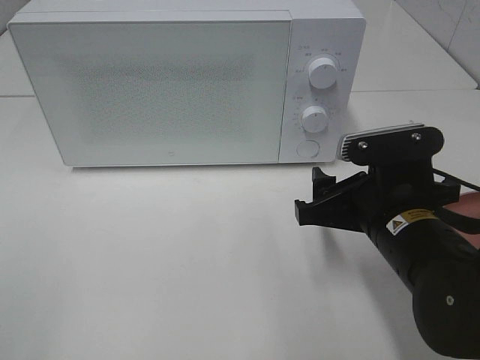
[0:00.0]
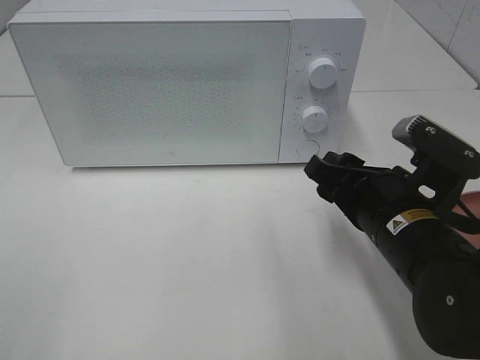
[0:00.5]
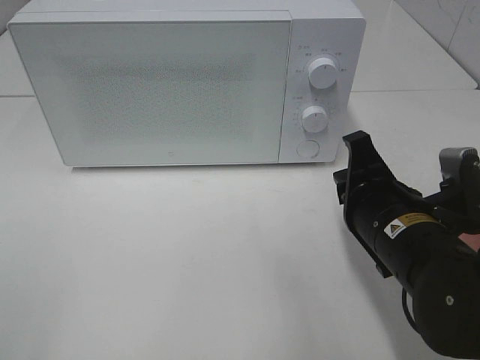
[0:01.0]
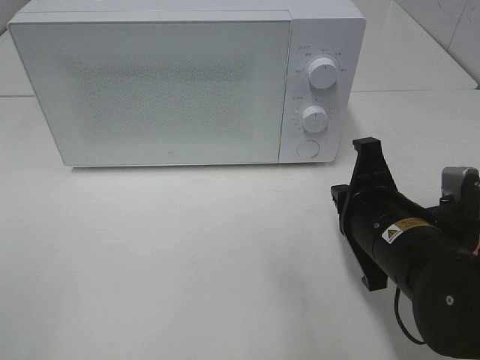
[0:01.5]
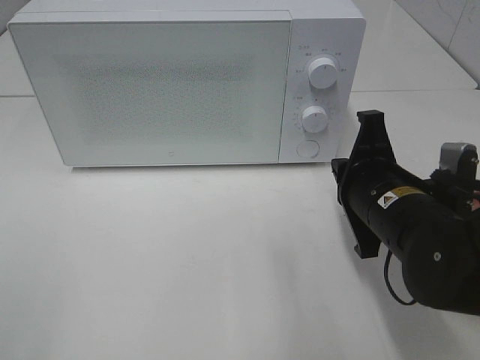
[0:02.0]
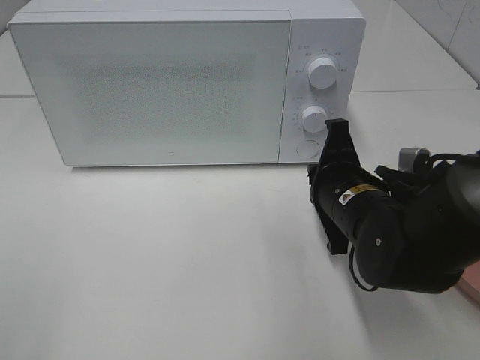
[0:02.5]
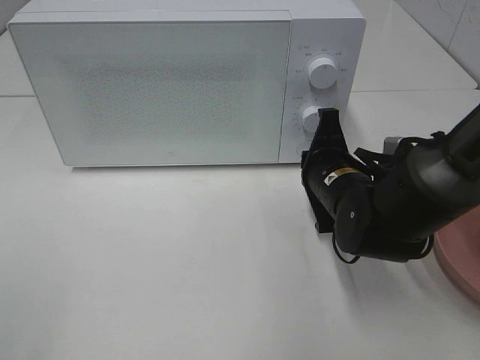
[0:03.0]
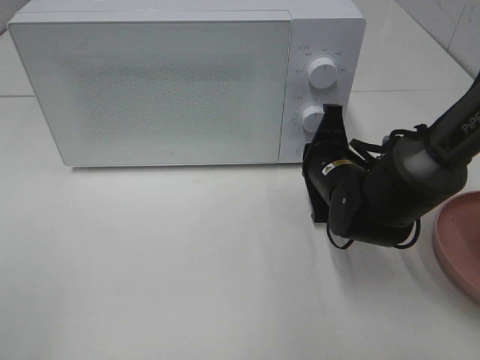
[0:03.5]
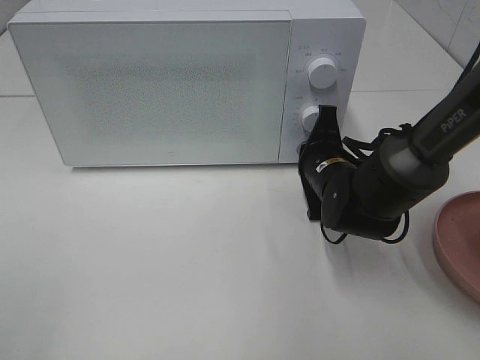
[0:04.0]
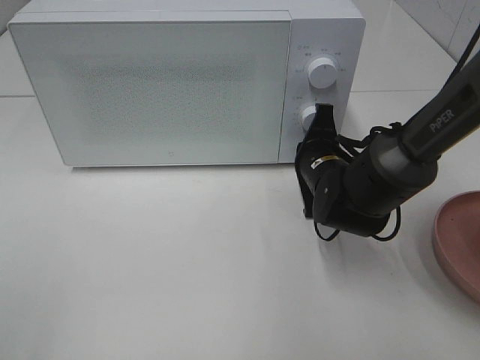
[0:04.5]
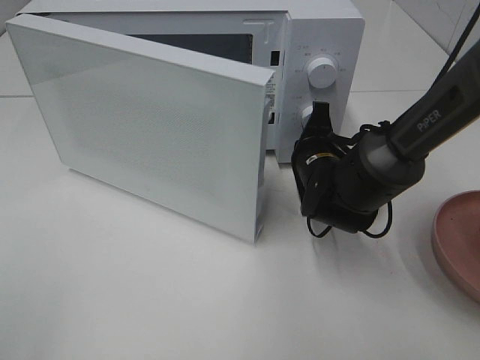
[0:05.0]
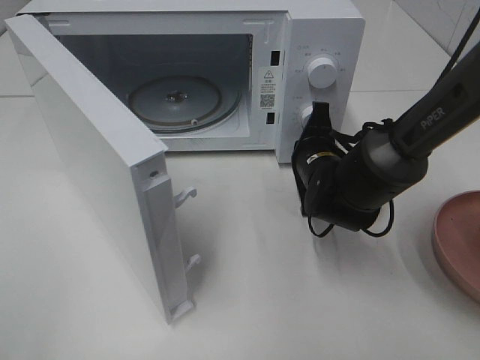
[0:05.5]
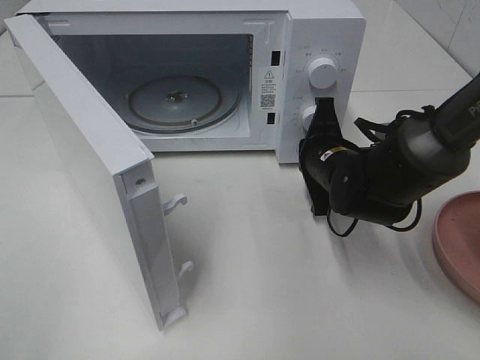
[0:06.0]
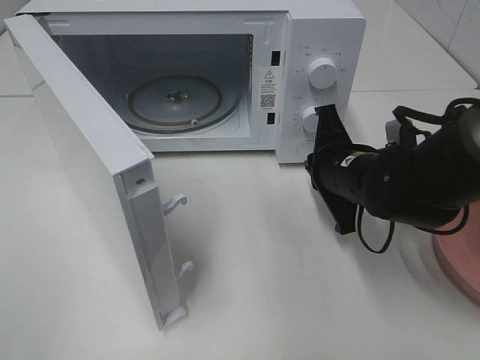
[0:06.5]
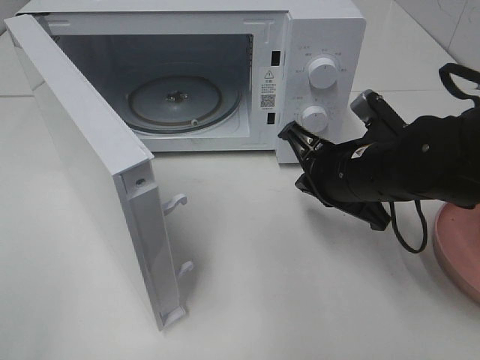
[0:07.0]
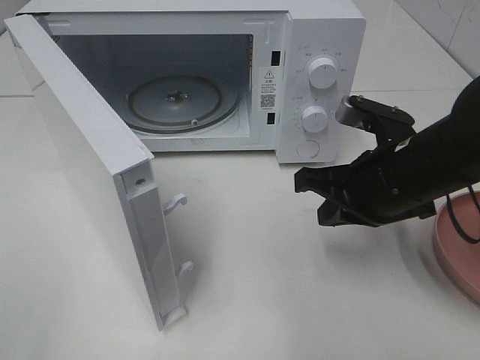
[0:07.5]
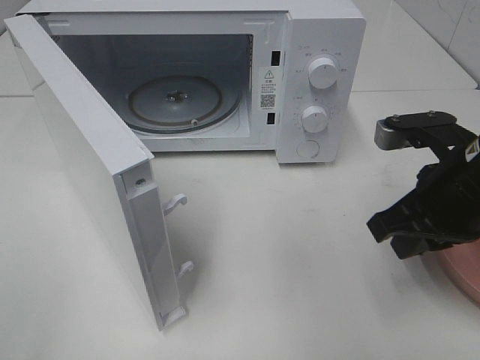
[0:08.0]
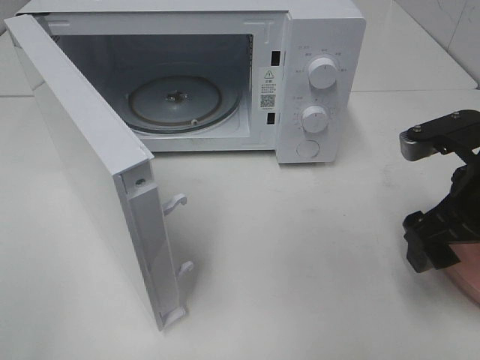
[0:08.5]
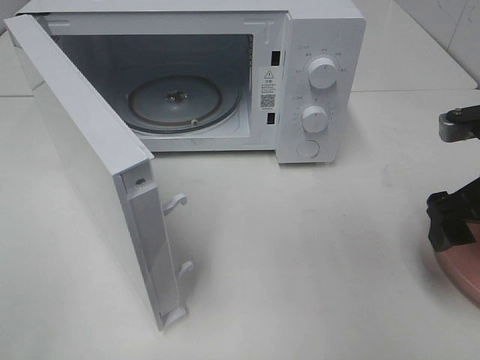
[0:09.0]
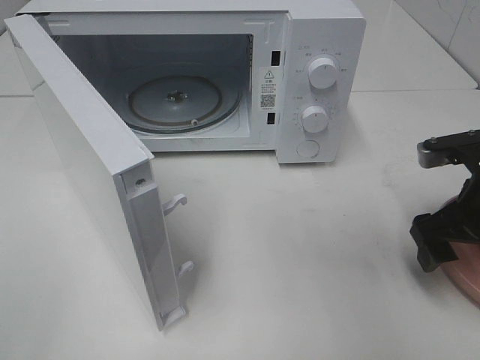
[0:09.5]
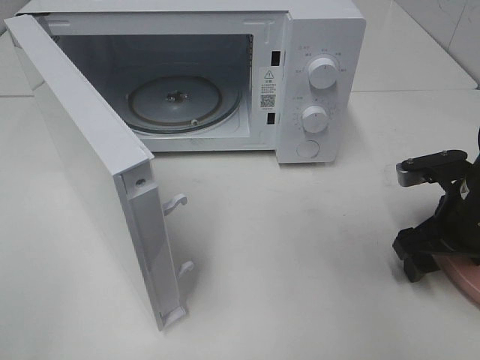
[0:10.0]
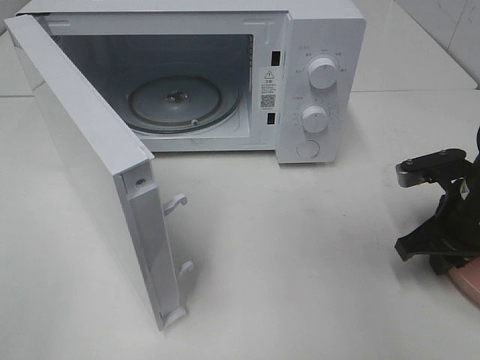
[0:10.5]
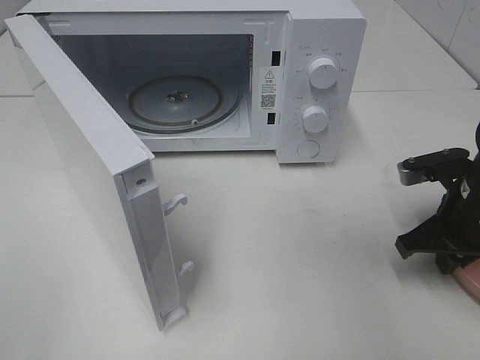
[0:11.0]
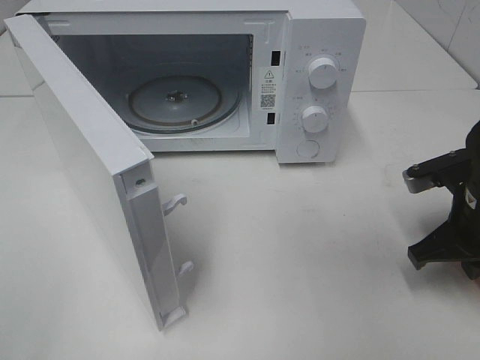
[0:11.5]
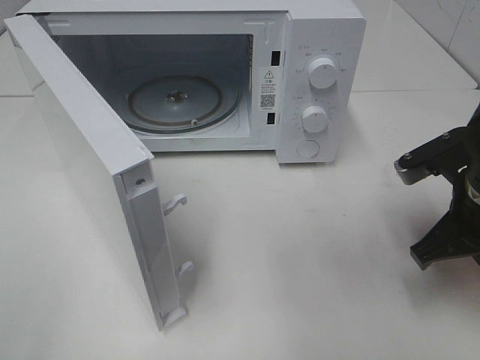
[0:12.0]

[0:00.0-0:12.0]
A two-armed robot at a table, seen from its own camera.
Task of the whole recording: Heat the burger.
Step, 0:00.0 to 0:06.0: Right hand: press the switch.
Step, 0:06.5 to 0:11.5: Right hand: grab the plate with the hamburger.
0:00.0 to 0:02.0: The right gripper closes its fingers.
0:02.0 to 0:04.0: The right gripper travels forward and downward by roughly 15 cm.
0:06.0 to 0:08.0: The right gripper moves backward, upward and to the right, about 15 cm.
0:08.0 to 0:10.0: The right gripper travels downward by approximately 10 cm, and opens.
0:10.0 to 0:12.0: The right gripper ends up some 5 cm from where it was, and closes up.

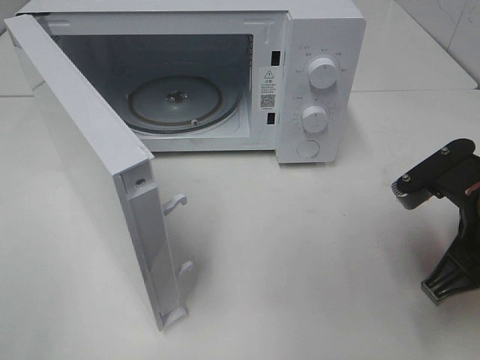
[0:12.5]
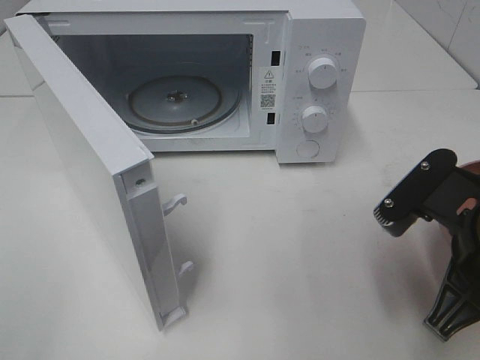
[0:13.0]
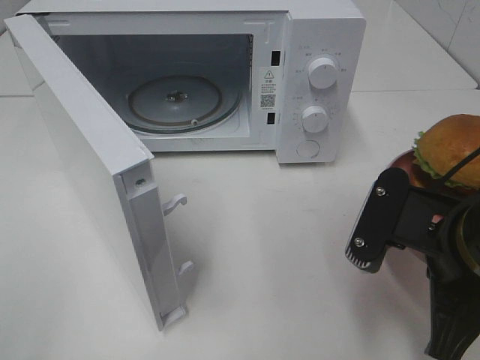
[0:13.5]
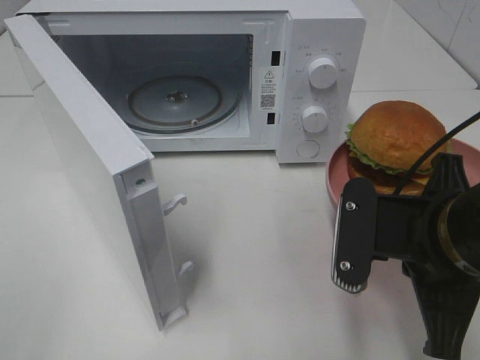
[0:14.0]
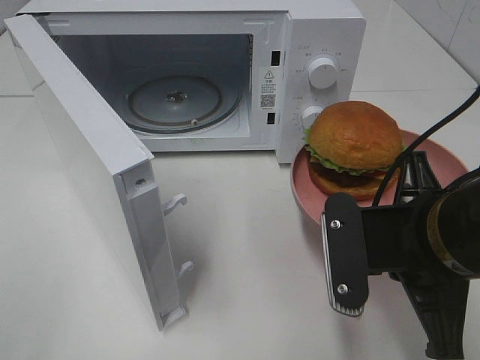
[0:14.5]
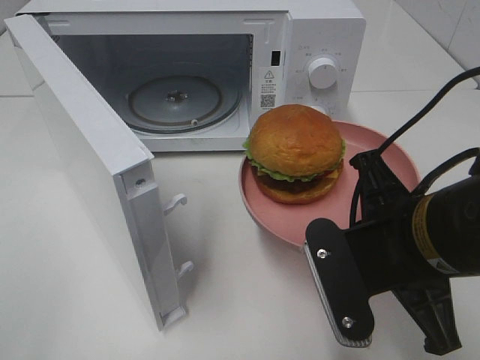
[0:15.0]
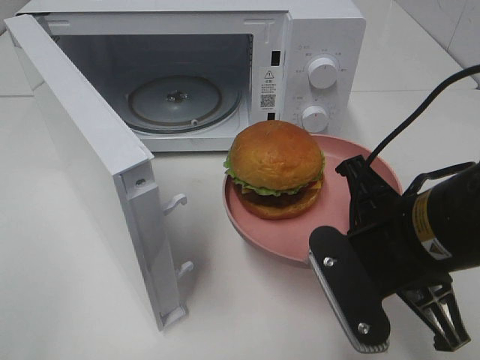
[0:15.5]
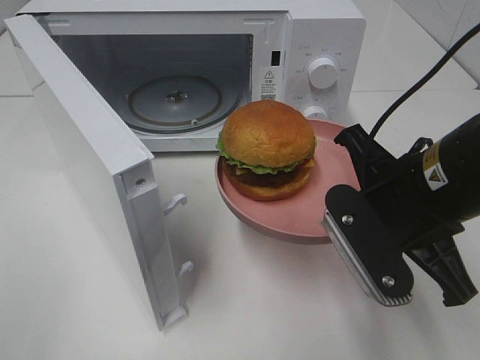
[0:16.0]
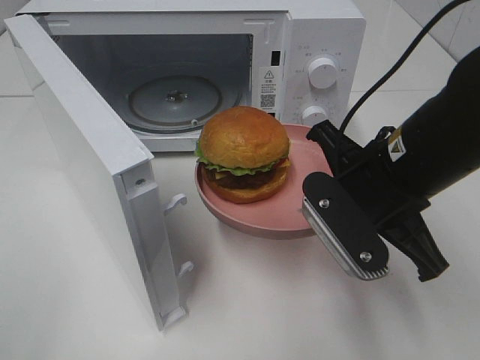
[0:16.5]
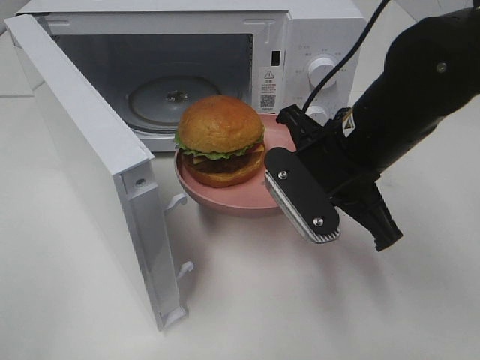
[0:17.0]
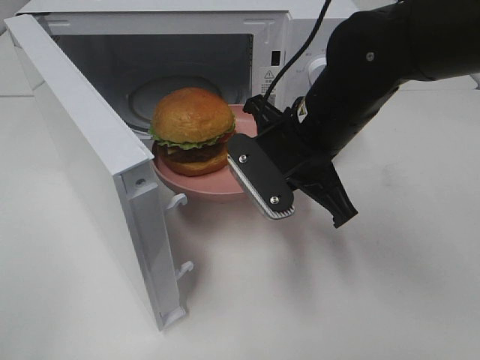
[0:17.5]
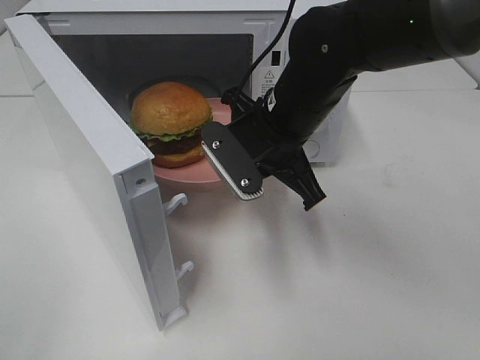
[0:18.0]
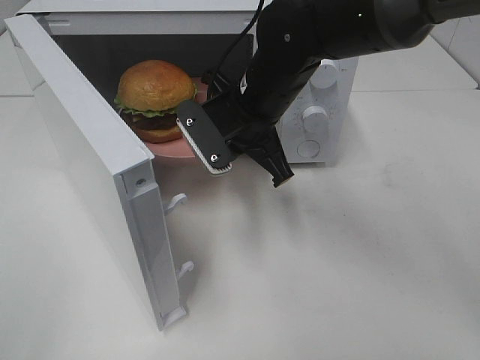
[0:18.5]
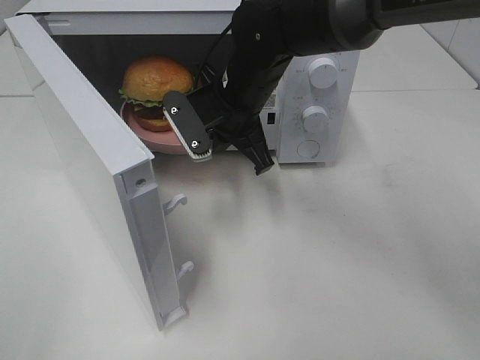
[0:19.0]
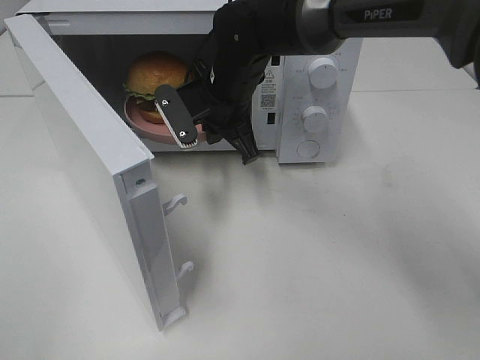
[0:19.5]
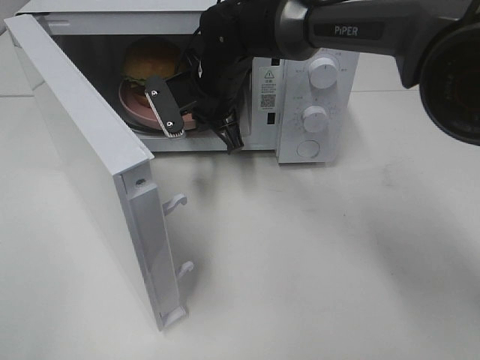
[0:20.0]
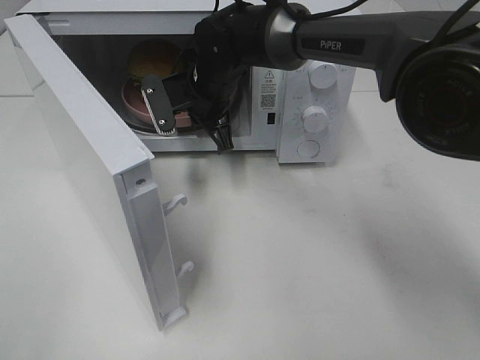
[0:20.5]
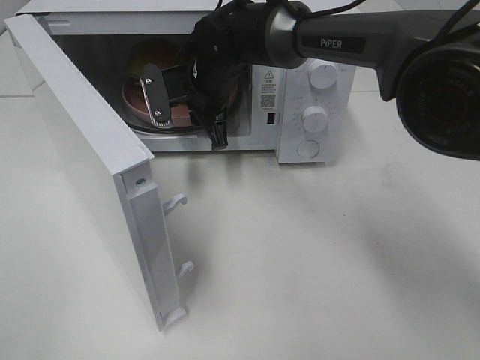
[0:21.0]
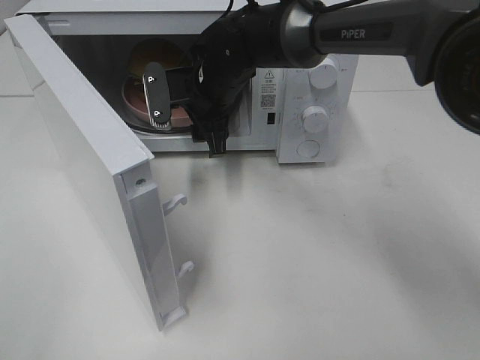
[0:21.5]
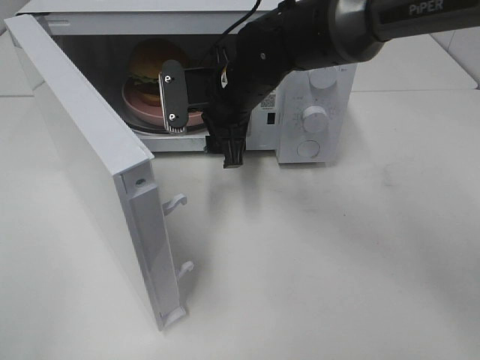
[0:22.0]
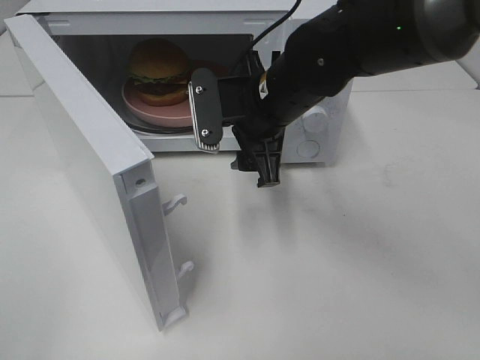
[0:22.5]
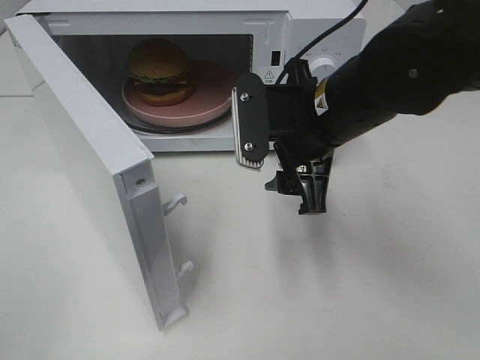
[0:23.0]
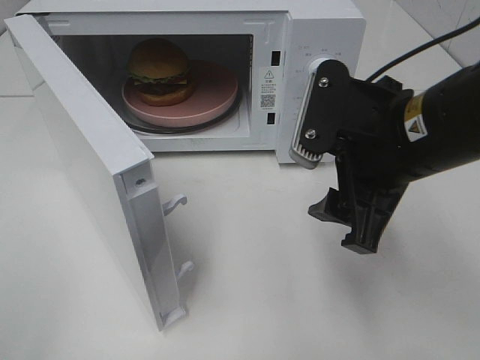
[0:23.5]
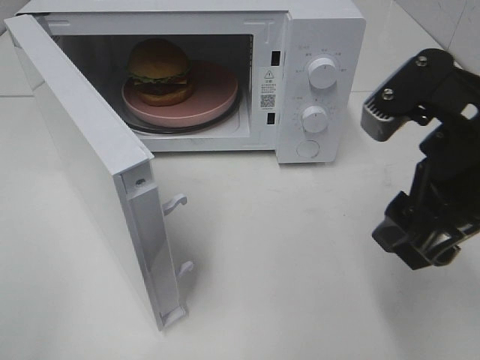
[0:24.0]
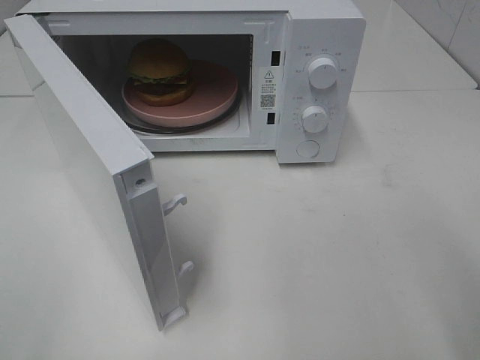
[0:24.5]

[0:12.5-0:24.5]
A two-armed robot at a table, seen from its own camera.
Task of the whole recording: Heat the burger.
Step, 0:12.5 to 0:21.0: Right hand: place the plate in the microwave.
0:12.5 to 0:14.5: The right gripper goes some 5 cm to the left.
0:14.5 to 0:16.5: The right gripper moves forward, roughly 5 cm.
0:16.5 to 0:18.5: The right gripper goes approximately 15 cm forward and to the left.
0:18.5 to 0:20.5: The right gripper heads forward and to the left, covering about 10 cm.
0:20.5 to 0:22.5: The right gripper shifts about 15 cm backward and to the right, and opens.
0:22.5 to 0:24.5: The right gripper is displaced backward, to the right and upward by approximately 30 cm.

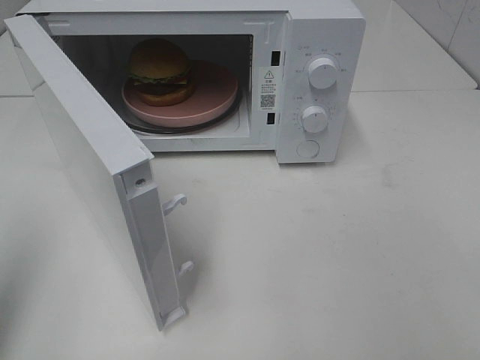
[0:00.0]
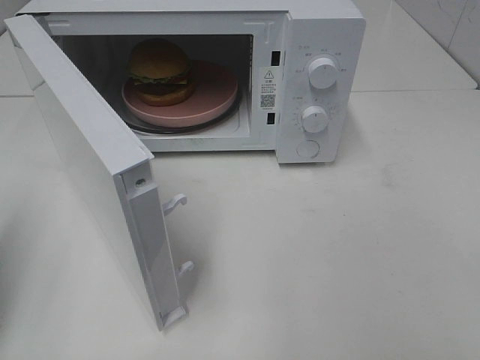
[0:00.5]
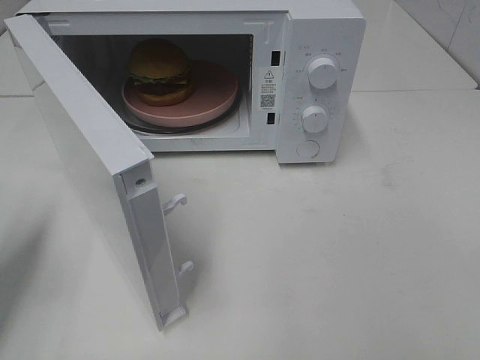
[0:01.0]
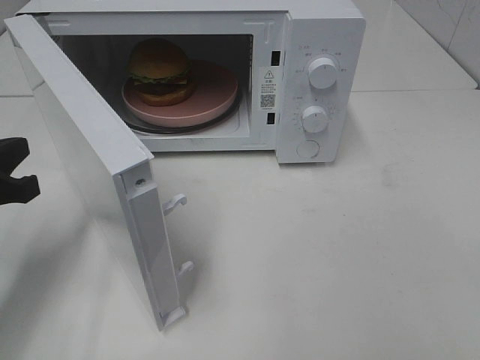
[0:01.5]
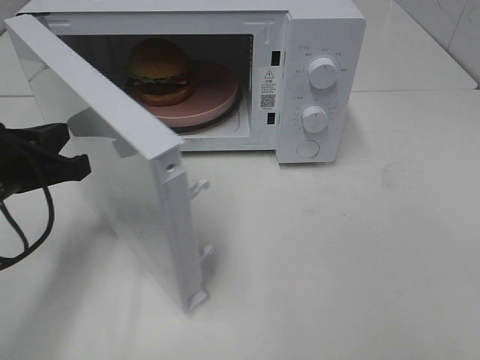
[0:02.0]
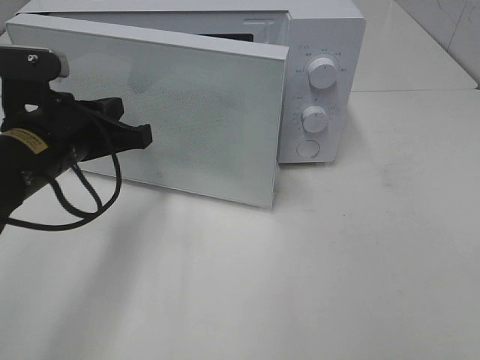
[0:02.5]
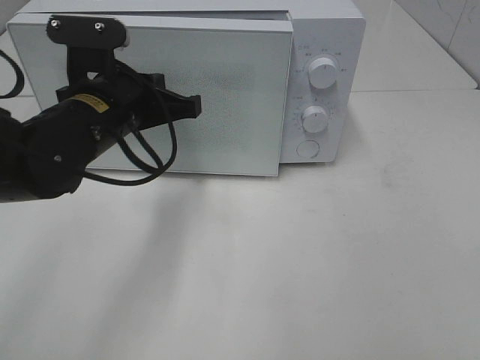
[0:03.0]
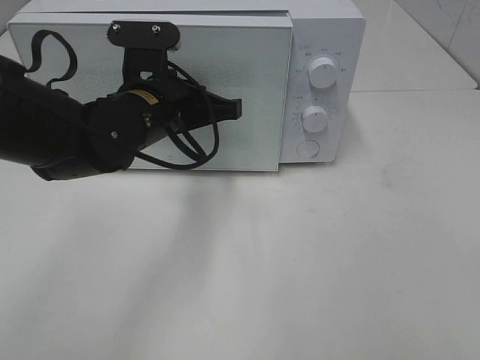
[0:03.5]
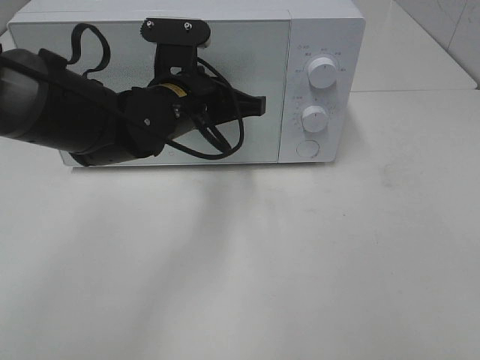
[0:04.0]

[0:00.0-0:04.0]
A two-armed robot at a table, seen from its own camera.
Task of the whole recording: Heat the burger.
0:00.0 to 0:02.0: The left gripper travels downward, forward and to the right by approximately 20 cm.
0:02.0 to 0:04.0: The left gripper goes some 20 cm to the right and forward.
